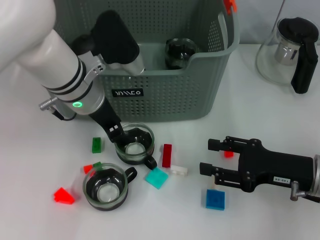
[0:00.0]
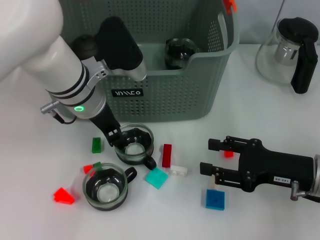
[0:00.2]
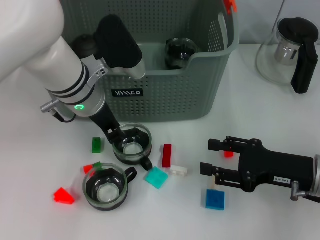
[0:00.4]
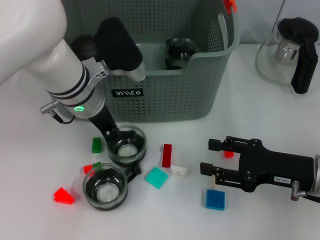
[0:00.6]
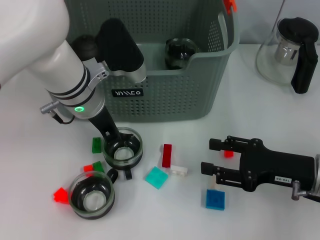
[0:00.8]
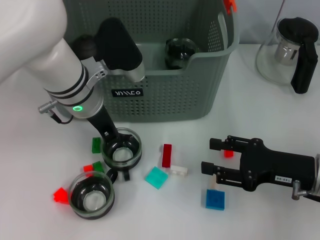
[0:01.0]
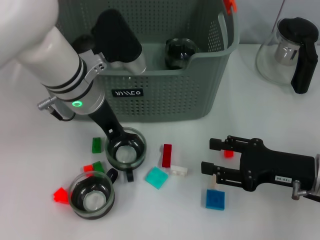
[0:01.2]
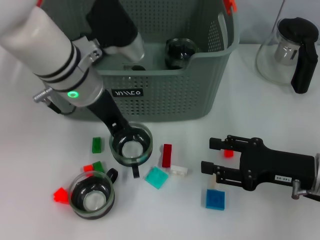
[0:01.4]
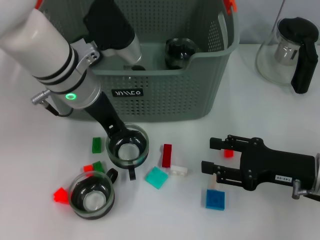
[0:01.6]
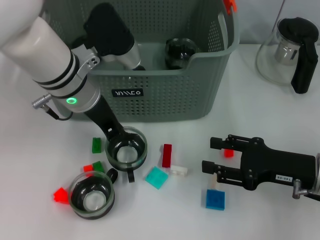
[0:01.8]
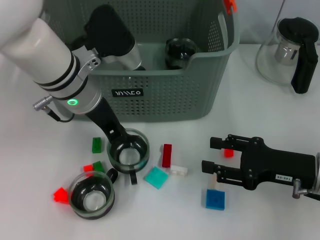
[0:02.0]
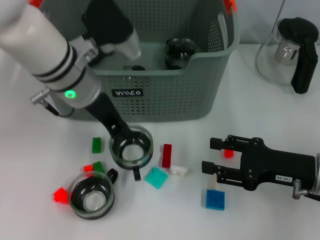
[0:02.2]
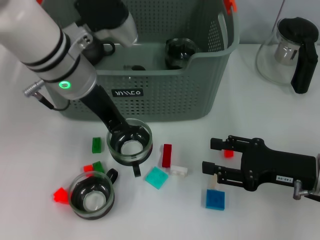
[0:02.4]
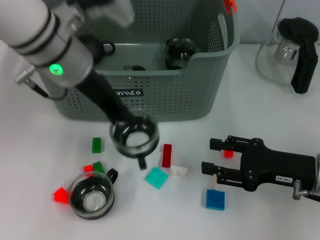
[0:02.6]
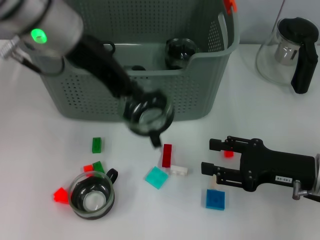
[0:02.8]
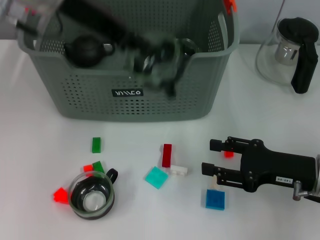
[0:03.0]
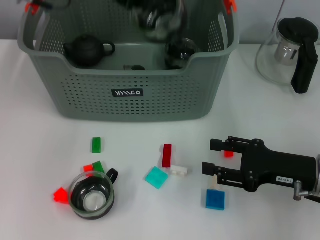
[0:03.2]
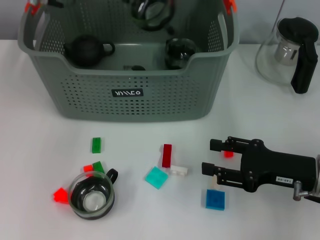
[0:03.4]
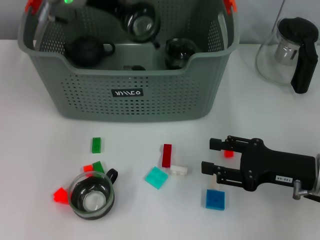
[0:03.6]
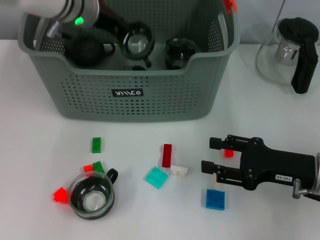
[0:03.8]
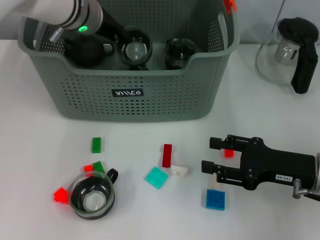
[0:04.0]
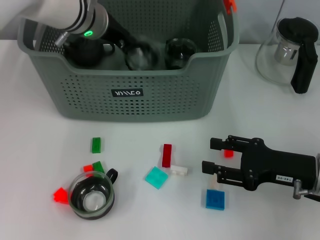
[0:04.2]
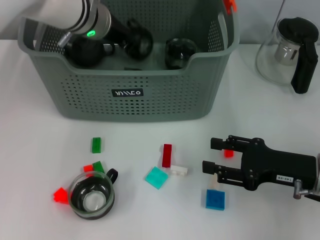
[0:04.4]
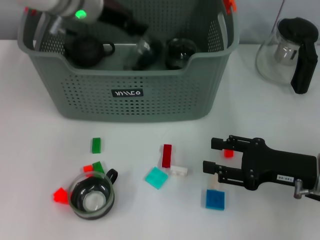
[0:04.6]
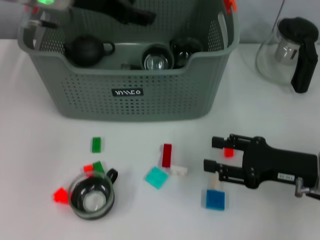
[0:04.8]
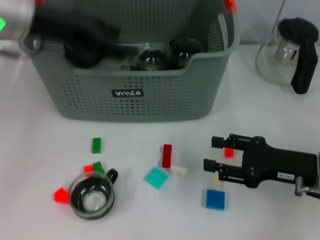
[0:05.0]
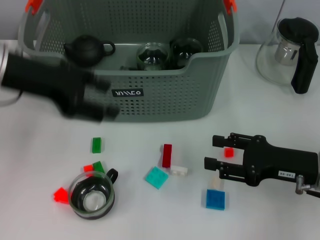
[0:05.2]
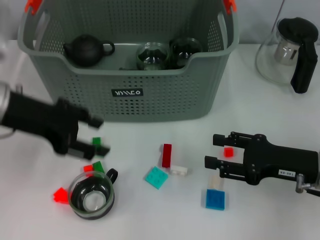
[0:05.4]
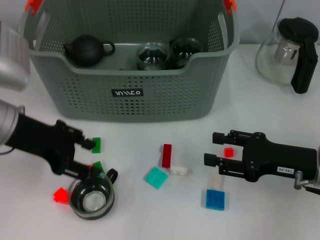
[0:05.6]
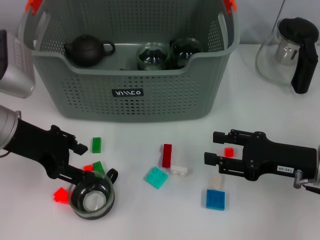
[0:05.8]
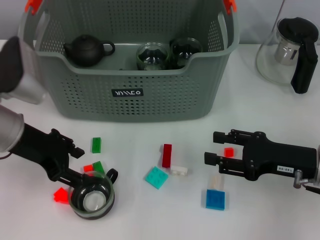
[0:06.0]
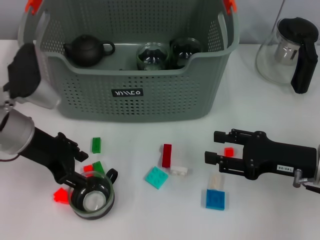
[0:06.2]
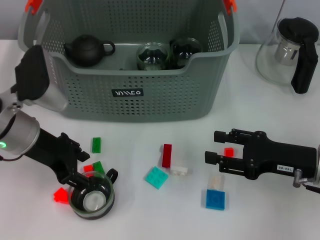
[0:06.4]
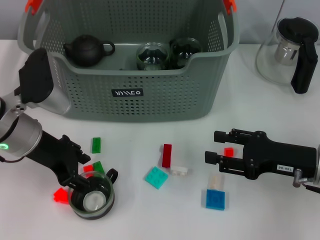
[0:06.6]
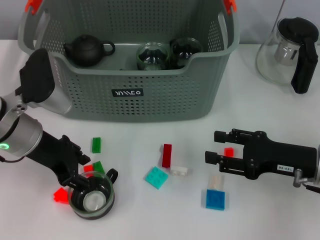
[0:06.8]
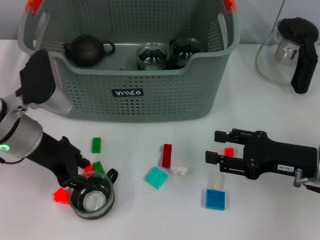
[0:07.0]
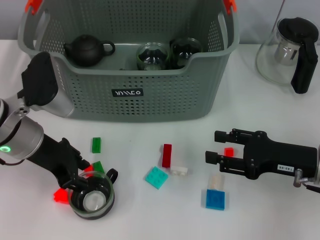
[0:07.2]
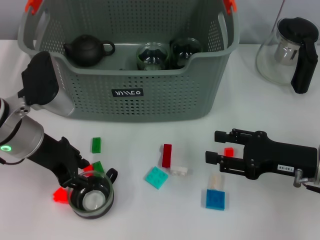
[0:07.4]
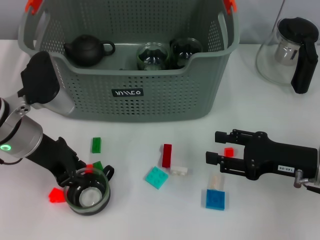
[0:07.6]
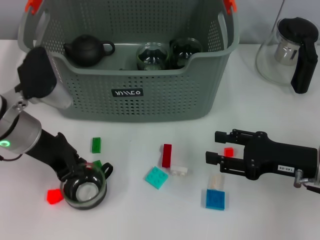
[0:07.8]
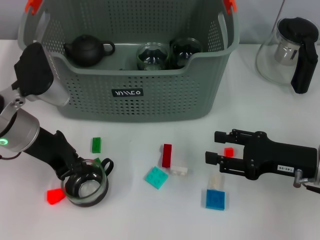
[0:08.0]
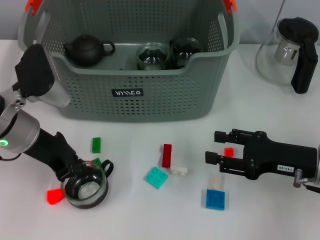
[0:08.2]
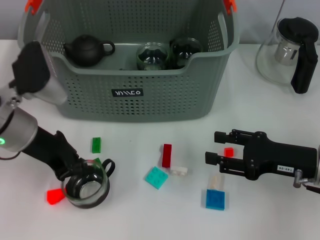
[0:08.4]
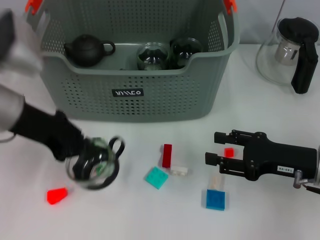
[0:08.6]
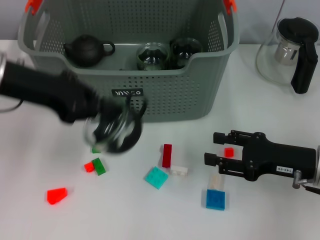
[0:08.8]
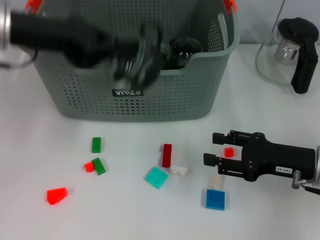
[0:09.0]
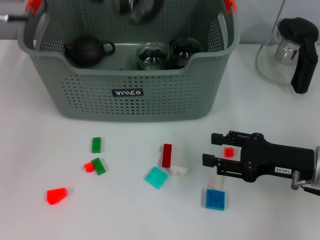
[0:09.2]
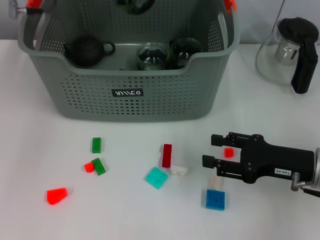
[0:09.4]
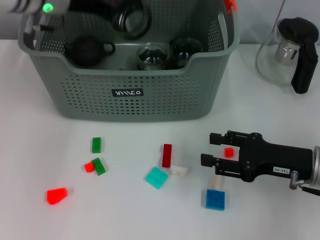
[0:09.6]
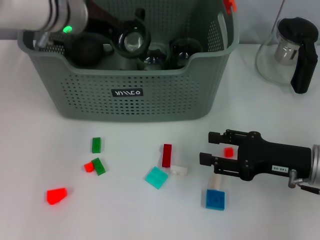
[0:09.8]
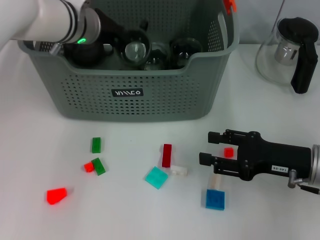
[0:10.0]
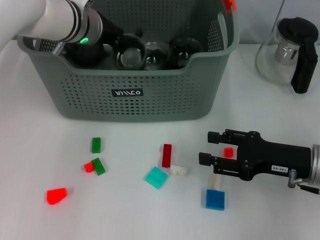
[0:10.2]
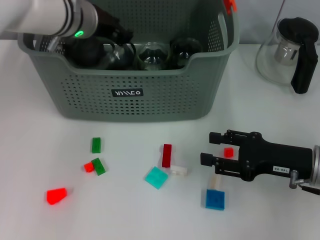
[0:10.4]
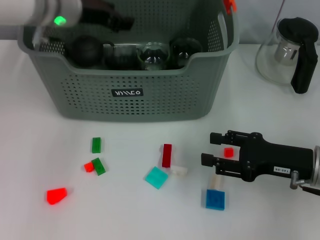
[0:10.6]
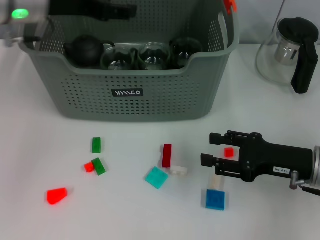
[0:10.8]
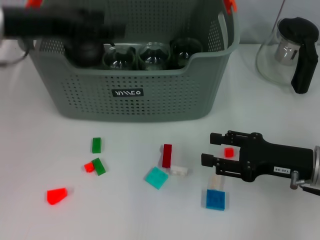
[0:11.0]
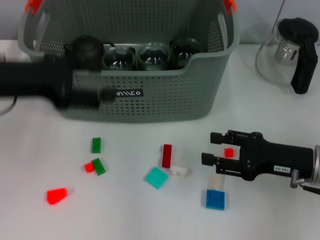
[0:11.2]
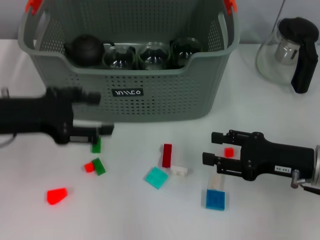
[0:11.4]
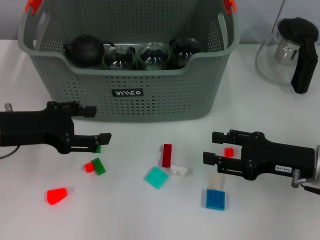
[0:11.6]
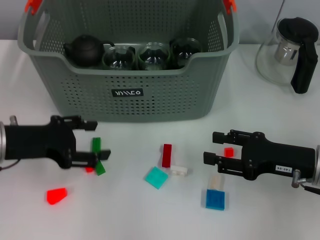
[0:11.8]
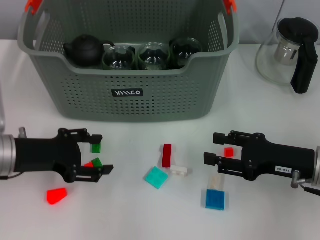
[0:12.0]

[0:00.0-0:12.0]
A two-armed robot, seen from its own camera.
Task of the whole recording: pick up the teacup on the table and place it into the storage bin, pick up the block on the table and place it into the storage bin.
Step, 1.0 to 4.6 s: Place the cup in the storage box with left gripper.
Step, 4.8 to 7.6 s: Grasp the cup with left gripper.
Step, 8.0 to 10.2 s: Place the cup in the storage box with left gripper.
0.0 to 1.6 s: The left gripper closes.
1.6 to 3.0 s: The left gripper heads upward, covering roughly 15 cm.
3.0 to 4.4 s: The left gripper shifts some 15 cm downward and forward.
4.4 to 6.0 s: The left gripper travels backward and to the left by approximately 20 cm, and opens.
6.0 to 7.6 s: The grippers stay close to where they were, moving slightly.
7.6 to 9.0 s: The left gripper travels upward by some 10 cm, and closes.
9.0 to 10.4 s: The left gripper goes about 15 cm forward, to the right and downward.
10.4 to 12.0 s: The left gripper moves backward, to the left and downward, some 20 cm, and opens.

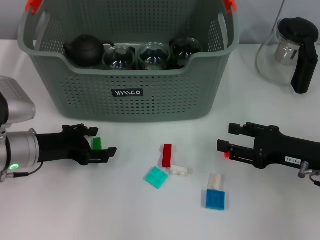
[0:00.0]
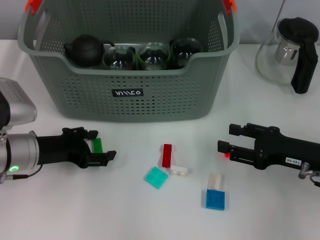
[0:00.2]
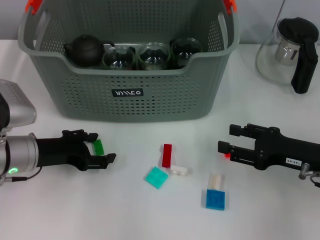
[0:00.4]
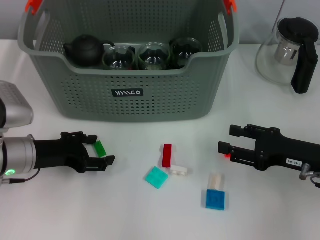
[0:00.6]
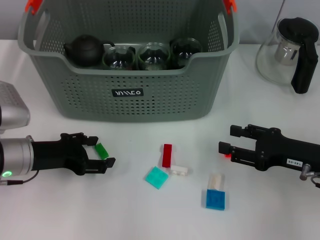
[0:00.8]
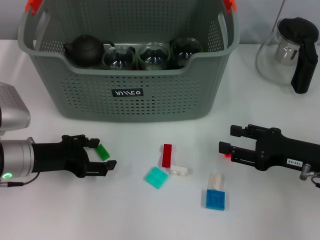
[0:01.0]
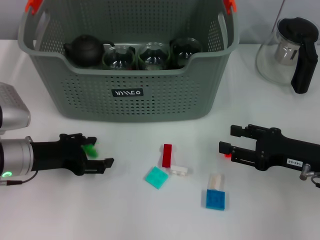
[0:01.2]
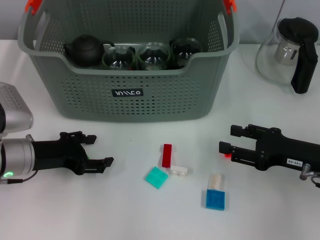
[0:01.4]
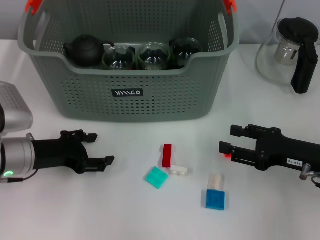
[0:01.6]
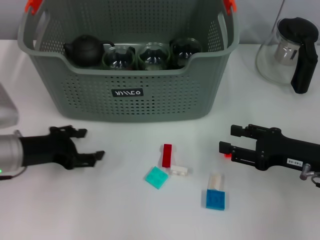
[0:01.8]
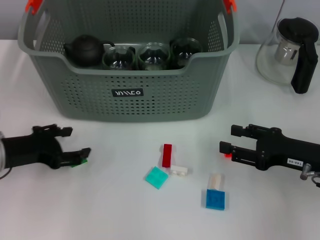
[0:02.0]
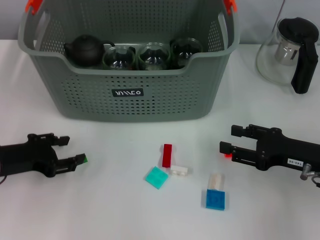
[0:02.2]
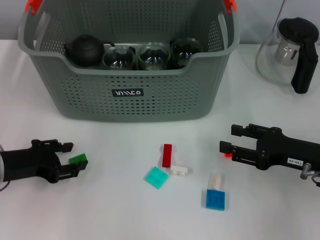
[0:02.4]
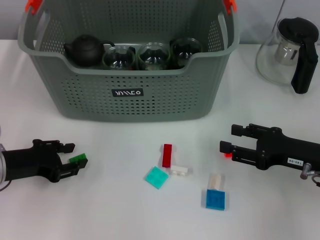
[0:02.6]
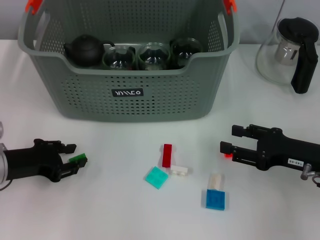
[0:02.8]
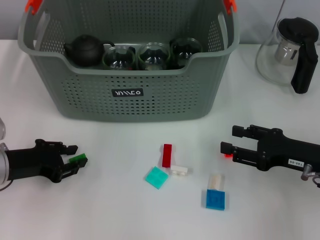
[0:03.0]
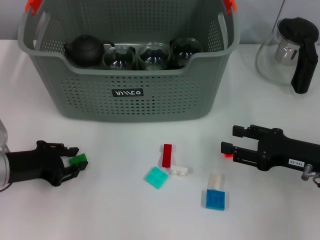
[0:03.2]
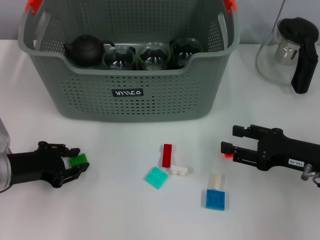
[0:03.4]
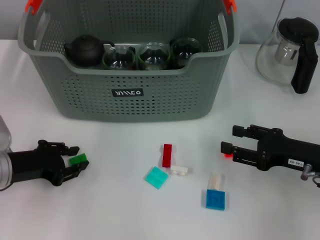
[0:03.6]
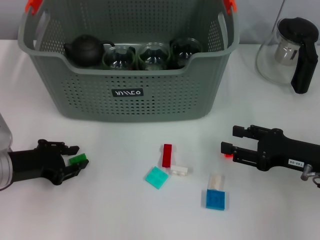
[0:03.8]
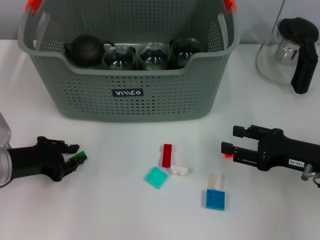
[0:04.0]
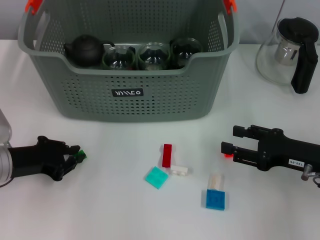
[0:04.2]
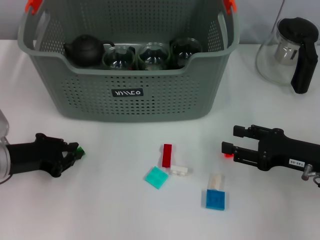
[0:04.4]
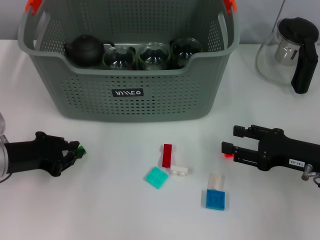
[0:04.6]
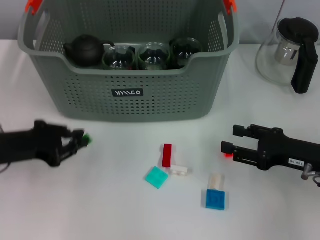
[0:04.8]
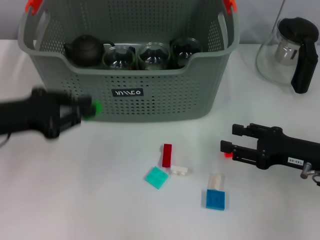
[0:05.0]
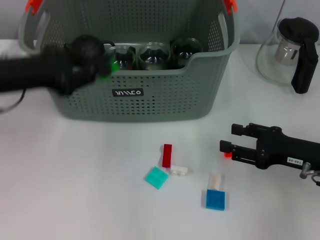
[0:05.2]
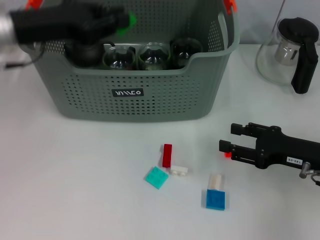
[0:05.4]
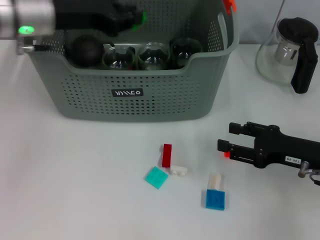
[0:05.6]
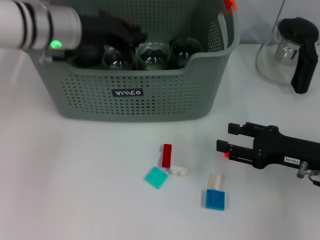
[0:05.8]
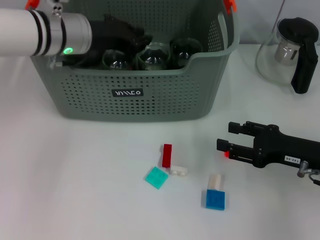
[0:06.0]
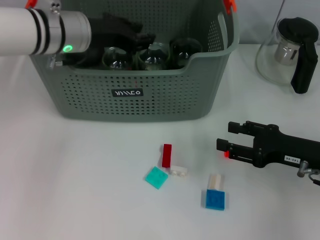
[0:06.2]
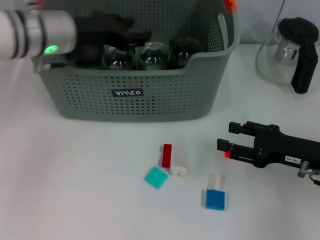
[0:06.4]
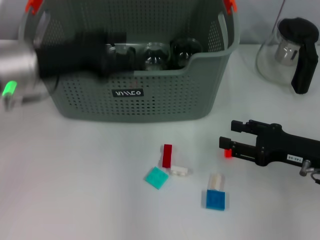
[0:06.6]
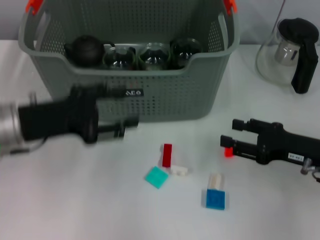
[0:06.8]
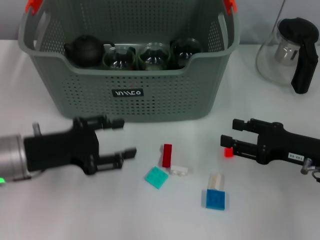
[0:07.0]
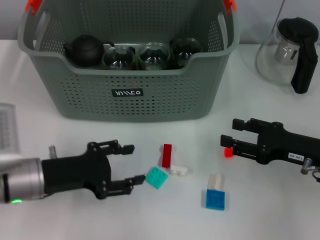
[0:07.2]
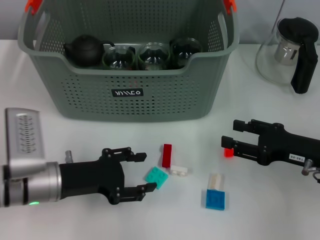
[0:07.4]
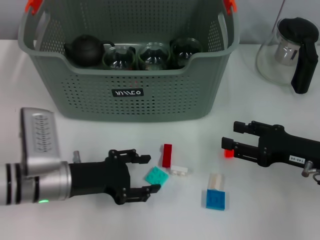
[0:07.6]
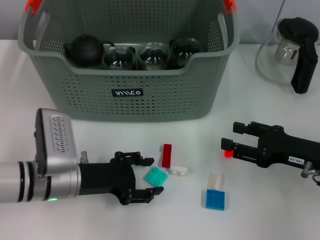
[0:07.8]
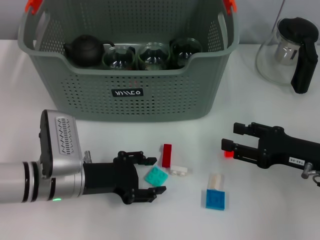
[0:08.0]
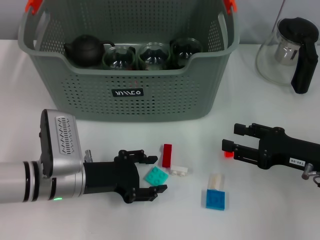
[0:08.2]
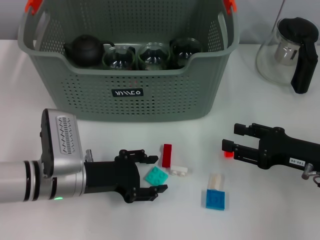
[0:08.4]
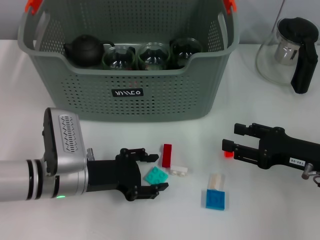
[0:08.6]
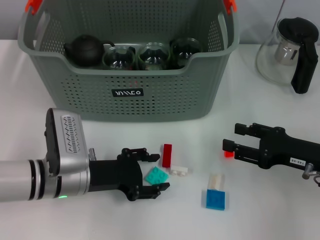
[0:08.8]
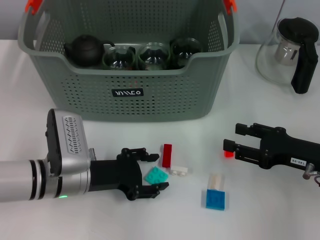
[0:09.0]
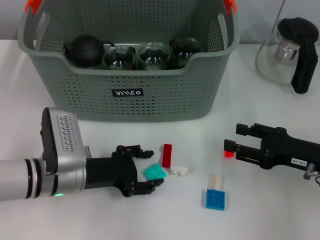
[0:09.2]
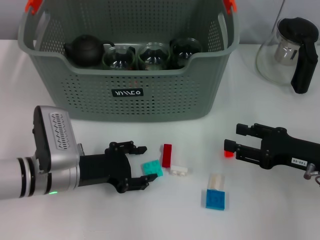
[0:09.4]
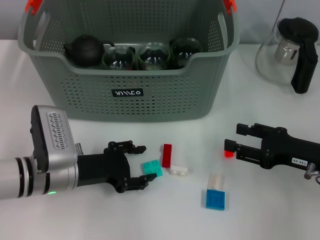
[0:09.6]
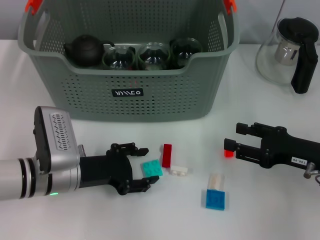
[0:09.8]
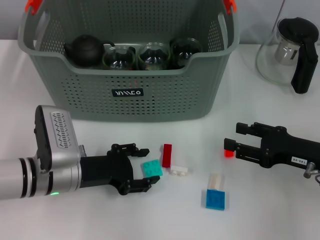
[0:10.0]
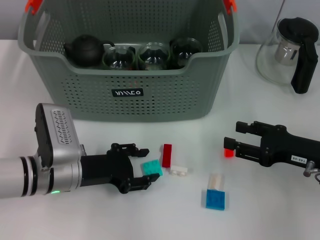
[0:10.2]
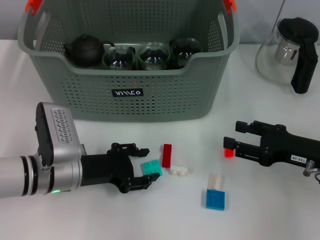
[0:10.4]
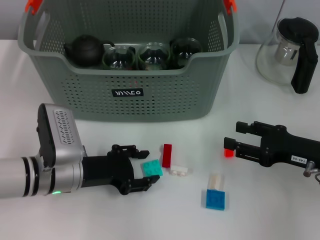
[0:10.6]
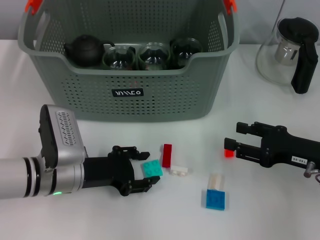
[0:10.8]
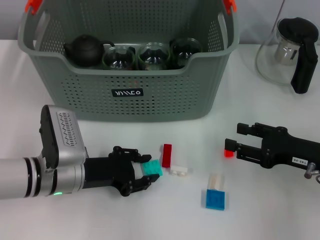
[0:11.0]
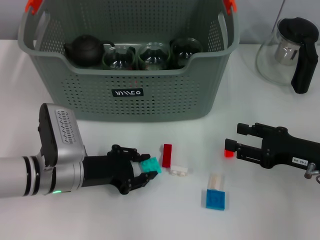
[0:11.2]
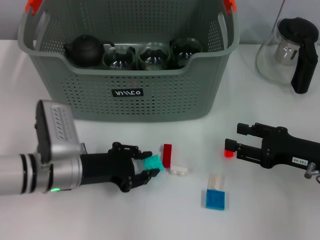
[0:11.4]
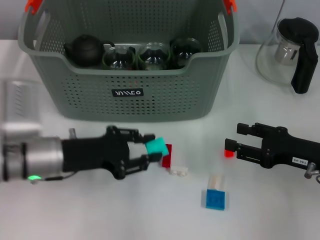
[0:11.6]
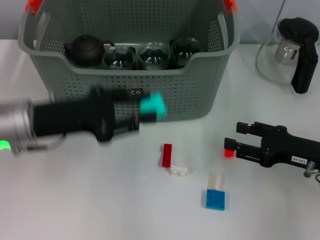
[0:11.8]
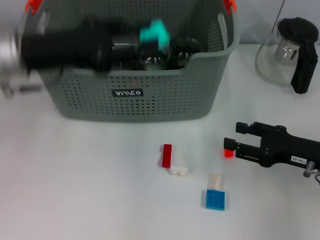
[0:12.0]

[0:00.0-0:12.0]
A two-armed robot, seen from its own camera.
Task of the whole recording: pick up the teacup on the table and place it into the storage bin, pick up the block on the table and place it into the storage bin.
Step, 0.0 to 4.0 s: Grasp the green block with left gripper.
Step, 4.4 to 6.0 s: Place the green block in the storage box with left gripper.
Step, 6.4 to 11.0 s: Grasp the light blue block with left gripper.
0.0 to 1.6 s: Neither gripper changes place.
1.6 to 3.0 s: The left gripper closes up.
3.0 to 4.4 s: The grippers make only small movements.
4.4 to 6.0 s: The left gripper moves forward, to the right and upward, about 20 cm.
6.0 to 7.6 s: The left gripper shifts about 20 cm backward and downward, and opens.
7.6 to 10.4 s: The grippers stay close to where they were, moving slightly.
10.4 to 12.0 s: The left gripper travels upward by about 20 cm.
